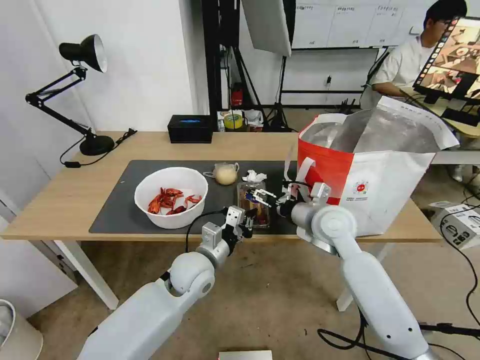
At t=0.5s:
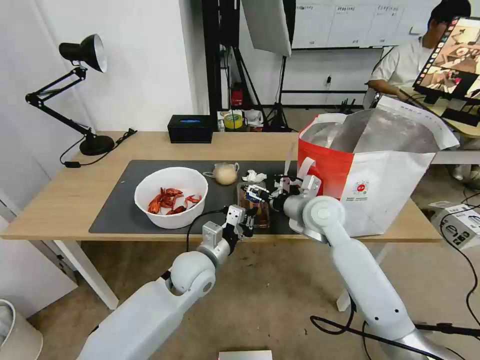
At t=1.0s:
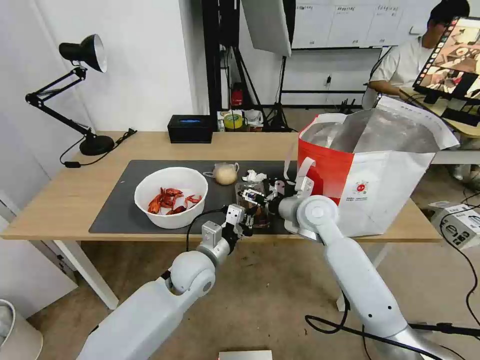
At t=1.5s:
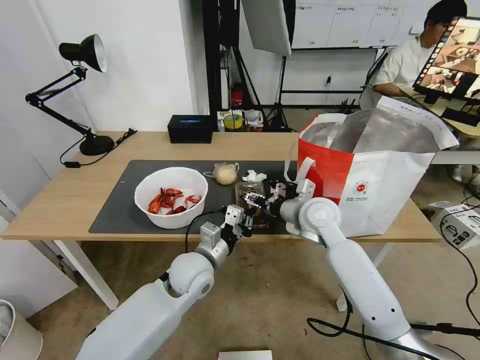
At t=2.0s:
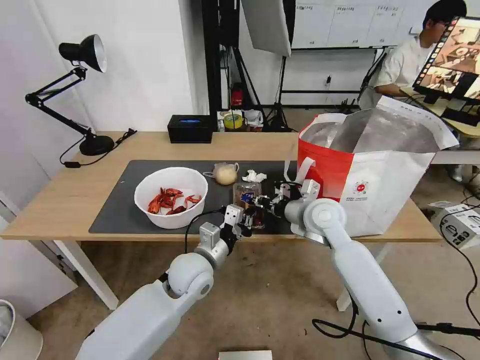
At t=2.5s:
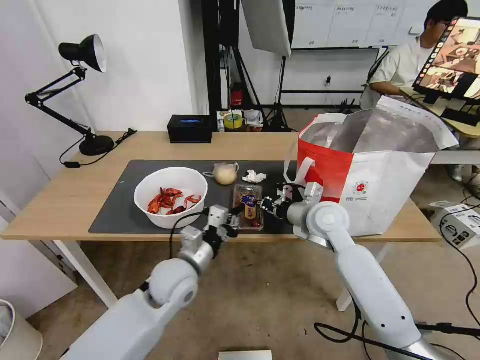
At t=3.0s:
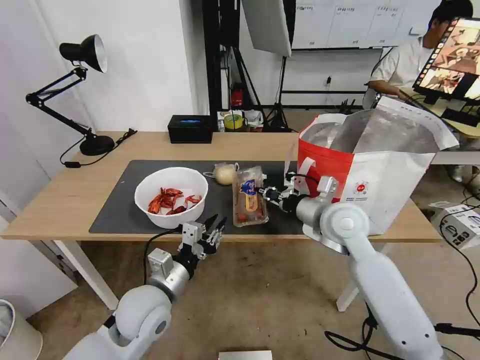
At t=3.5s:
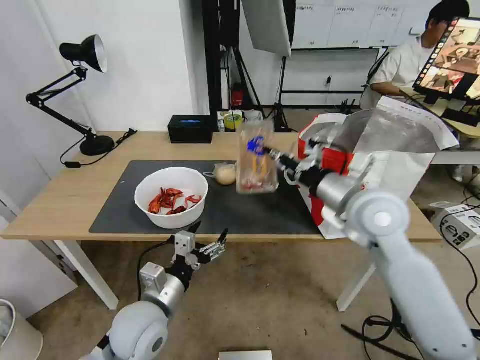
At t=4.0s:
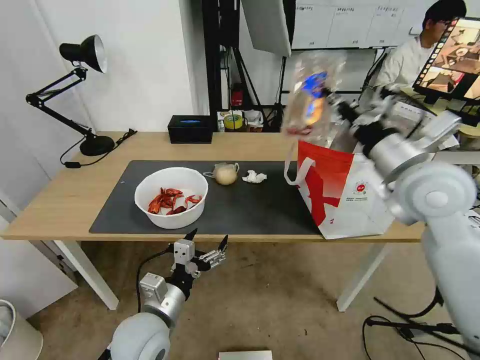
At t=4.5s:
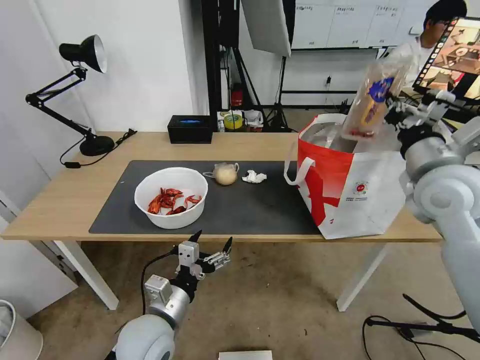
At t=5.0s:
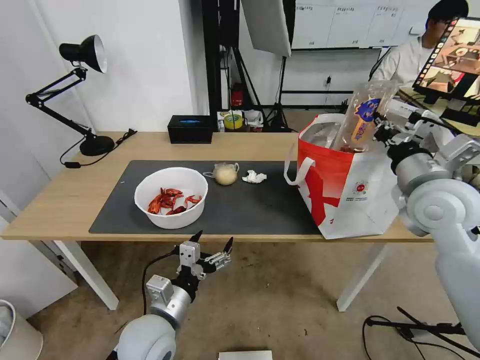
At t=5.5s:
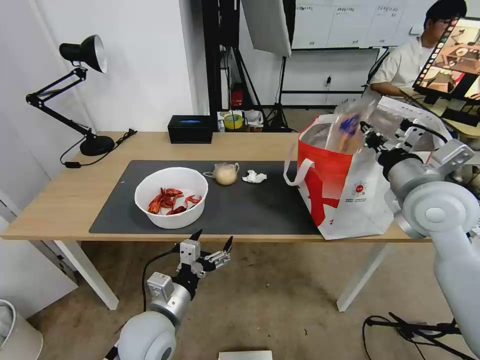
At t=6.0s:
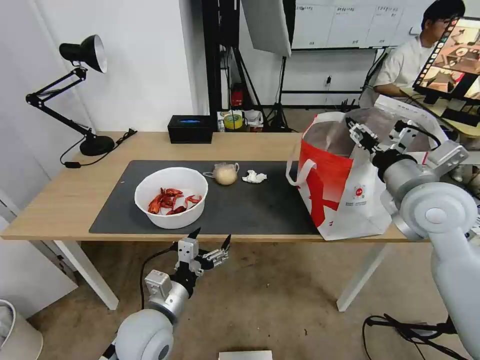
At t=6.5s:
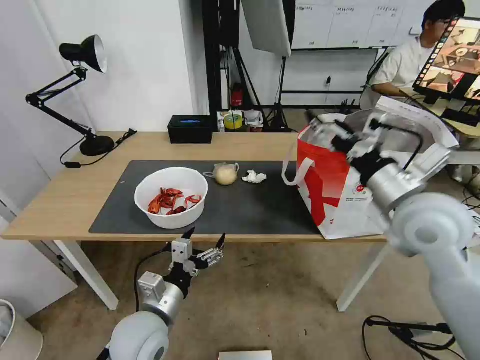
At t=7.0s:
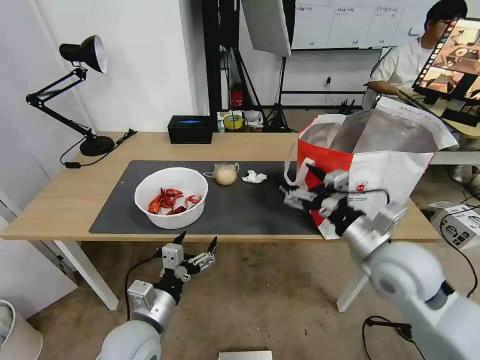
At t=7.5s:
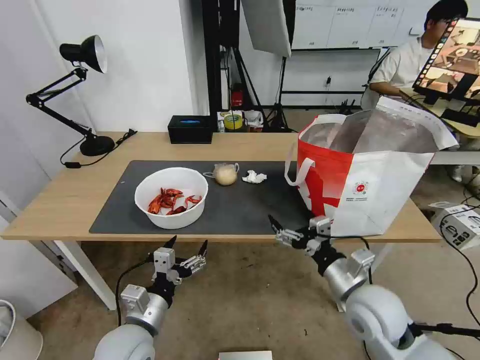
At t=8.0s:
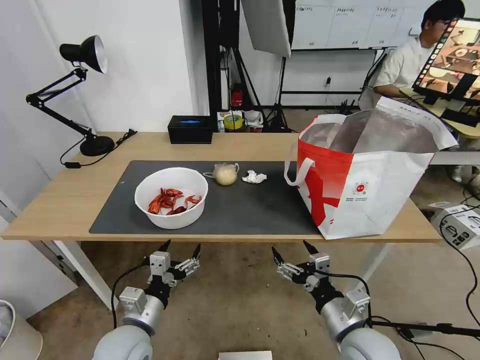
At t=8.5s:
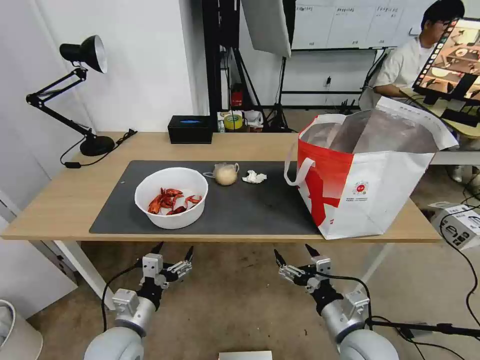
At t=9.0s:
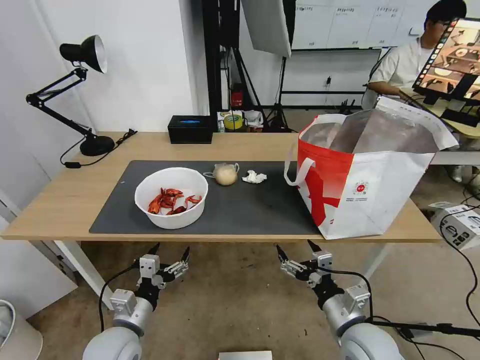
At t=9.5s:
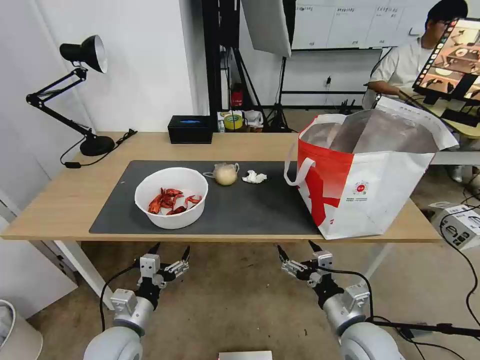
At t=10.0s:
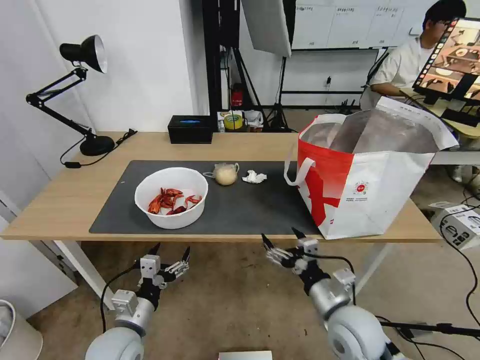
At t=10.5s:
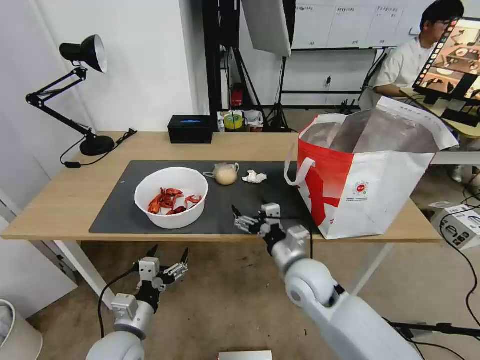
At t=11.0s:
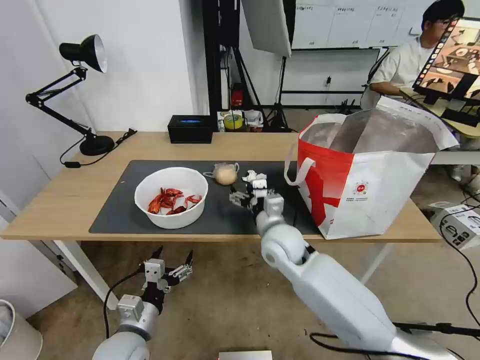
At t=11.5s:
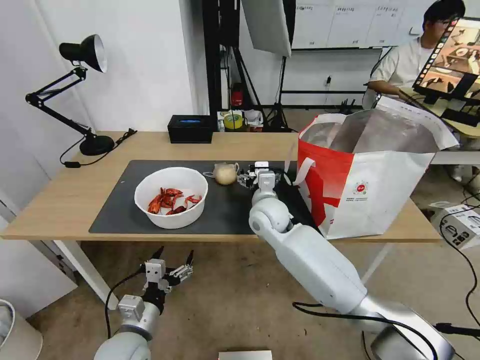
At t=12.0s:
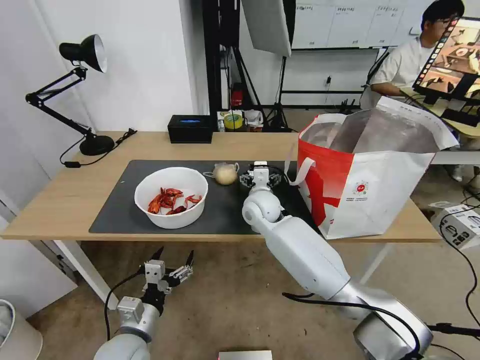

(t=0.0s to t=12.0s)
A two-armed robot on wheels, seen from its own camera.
Task of the whole recording: Pick up the trash from the table and place it into the takeout bag.
t=0.0s - t=2.0s: The right gripper closes its fingers.
t=2.0s - t=4.0s: The right gripper shifts some 20 cm upward, to the right and backward, while the left gripper moves backward and to the left, roughly 15 cm, and opens its fingers.
t=4.0s - t=6.0s: The right gripper shifts by approximately 5 cm, and opens its fingers.
t=6.0s - t=8.0s: The right gripper is displaced downward and backward by some 30 cm. The left gripper changes place by roughly 5 cm.
t=8.0s - t=10.0s: The grippers move only a little.
t=10.0s - t=12.0s: The right gripper moves forward and to the left, some 30 cm.

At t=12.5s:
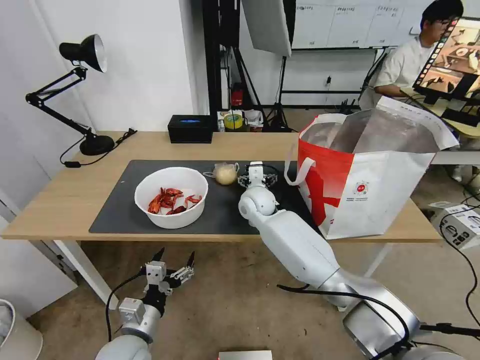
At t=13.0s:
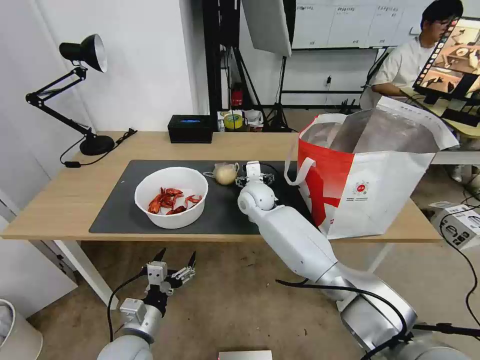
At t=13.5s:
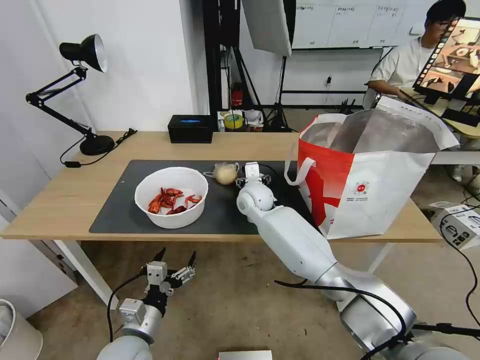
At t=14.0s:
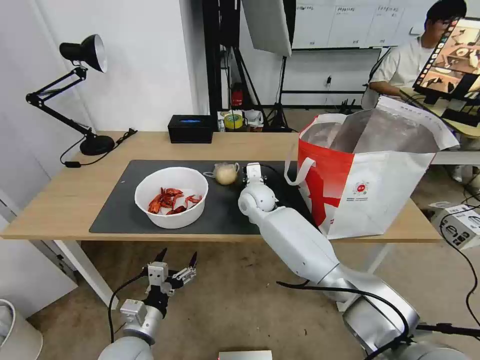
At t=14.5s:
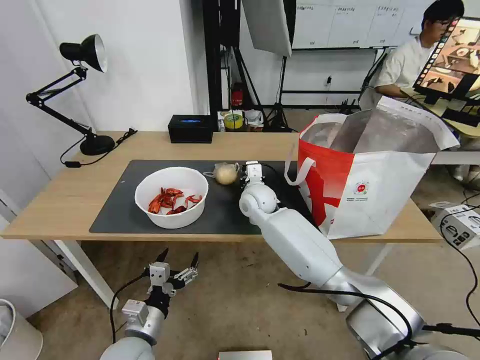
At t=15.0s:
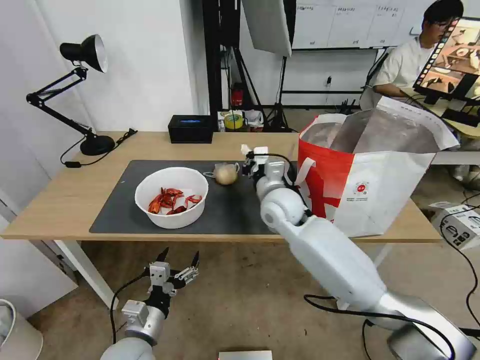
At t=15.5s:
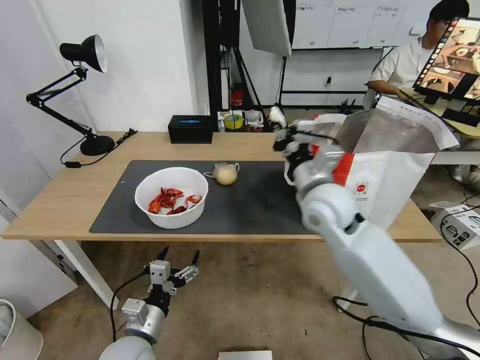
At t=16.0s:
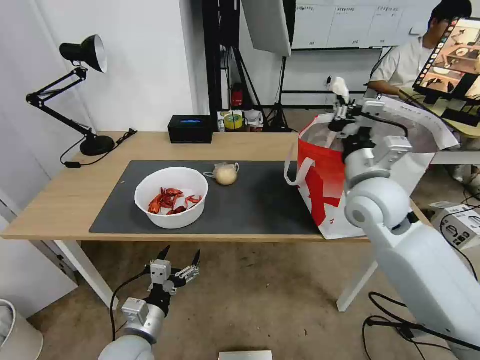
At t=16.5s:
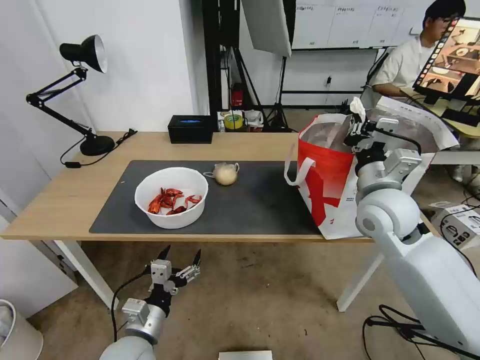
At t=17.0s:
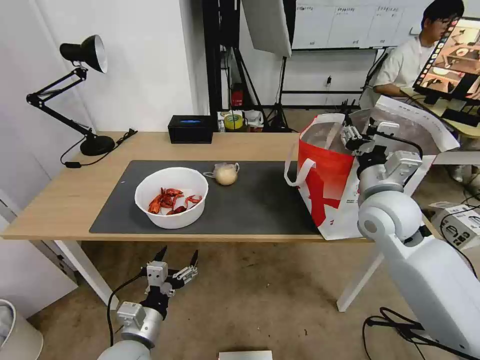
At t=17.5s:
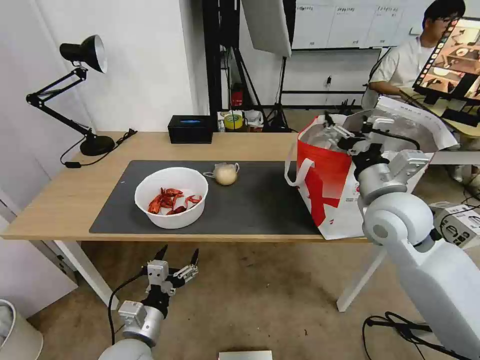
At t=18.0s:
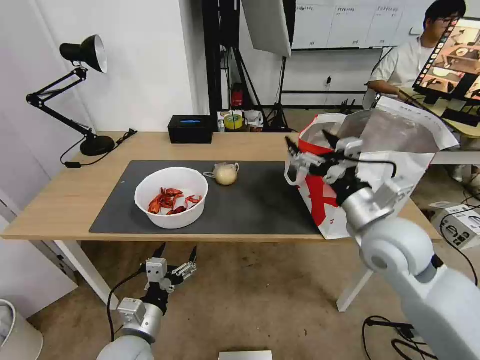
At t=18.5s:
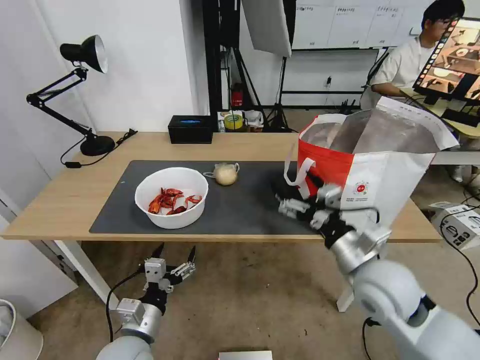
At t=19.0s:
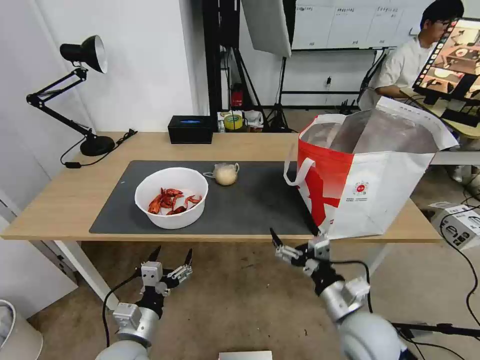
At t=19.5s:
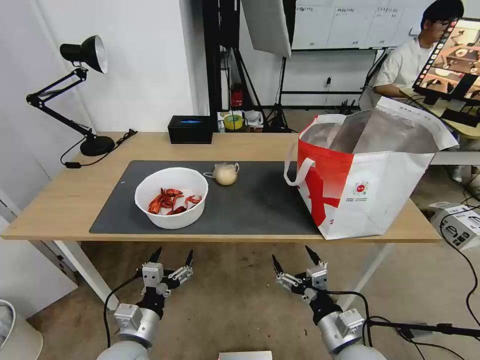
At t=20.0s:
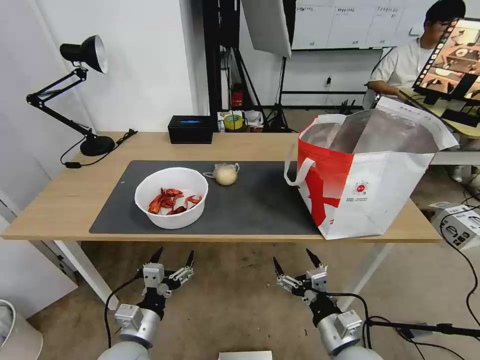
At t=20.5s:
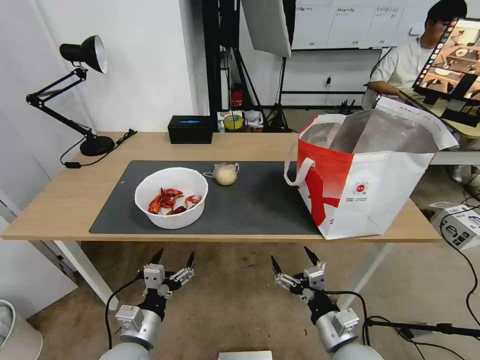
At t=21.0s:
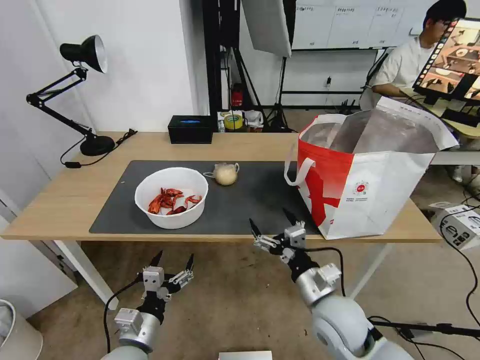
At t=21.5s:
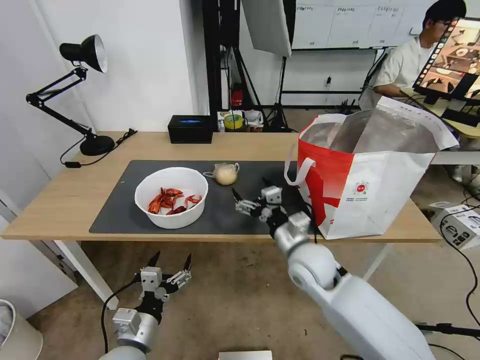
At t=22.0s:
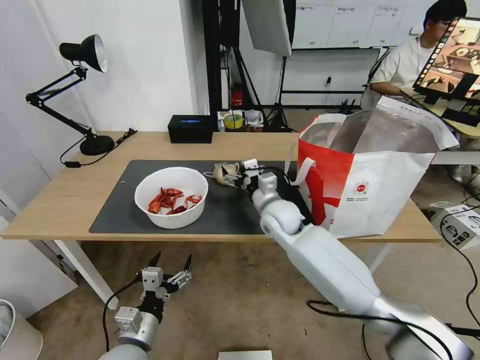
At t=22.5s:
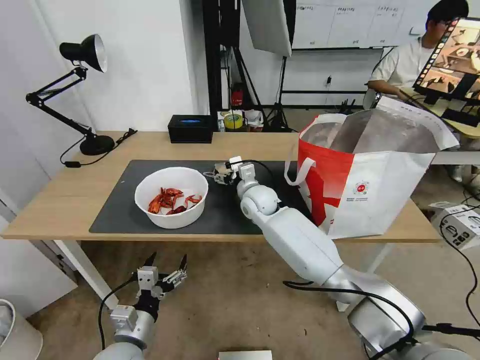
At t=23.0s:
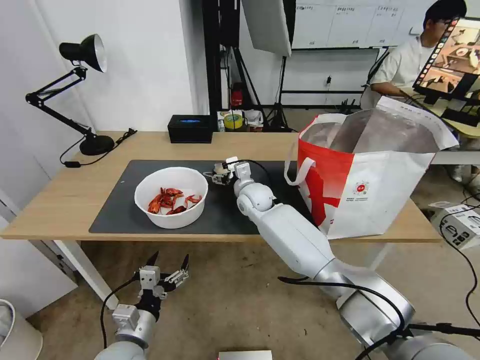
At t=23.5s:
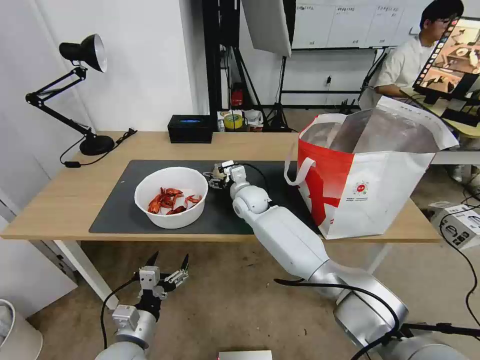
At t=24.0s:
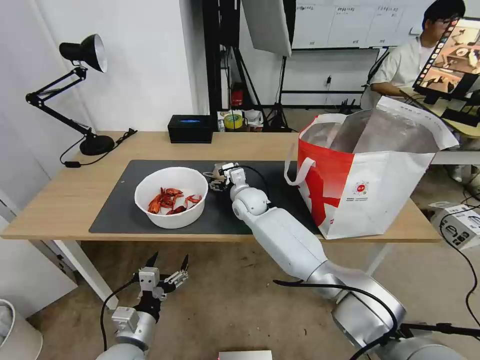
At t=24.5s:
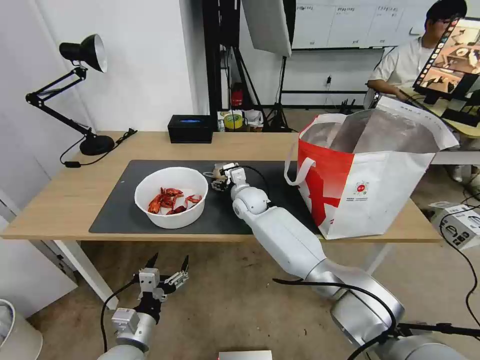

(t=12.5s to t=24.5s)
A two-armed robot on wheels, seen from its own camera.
Task of the whole recording: Pick up the trash from the table and place it into the takeout bag.
t=12.5s - t=14.5s: The right gripper closes.
t=14.5s - t=16.5s: The right gripper shifts about 30 cm to the right, backward and upward.
t=16.5s - t=18.5s: The right gripper travels backward and downward by approximately 15 cm, and opens.
t=18.5s - t=20.5s: The right gripper shifts about 15 cm downward and backward.
t=20.5s - t=22.5s: The right gripper heads forward and to the left, covering some 40 cm.
t=22.5s - t=24.5s: The grippers stay close to where they were, moving slightly.

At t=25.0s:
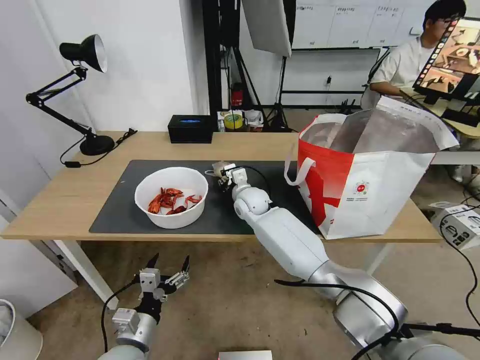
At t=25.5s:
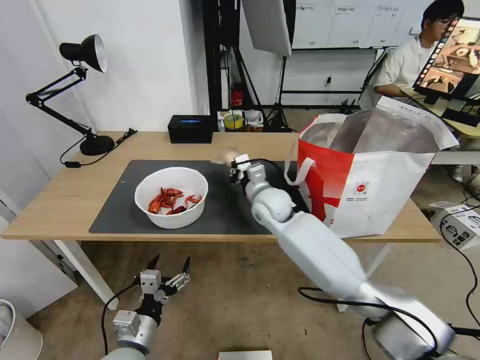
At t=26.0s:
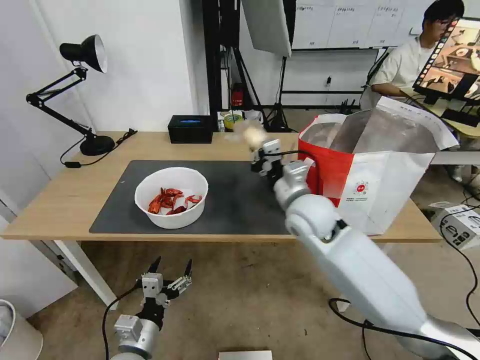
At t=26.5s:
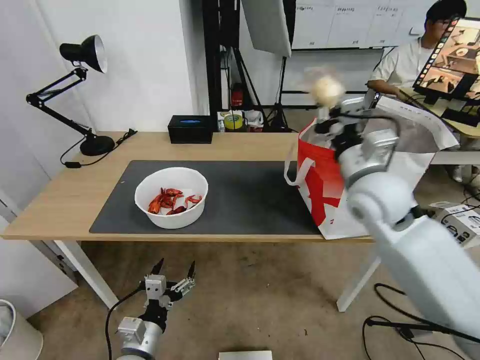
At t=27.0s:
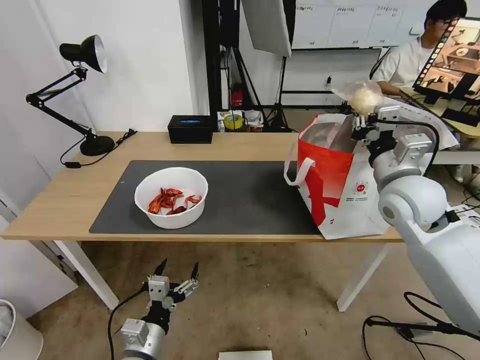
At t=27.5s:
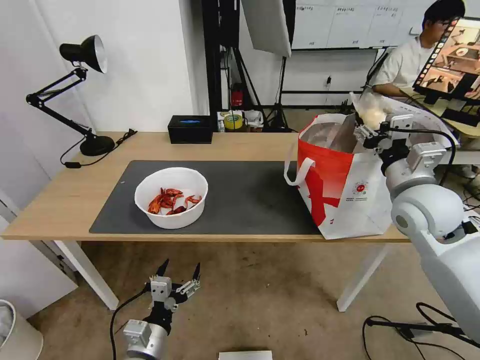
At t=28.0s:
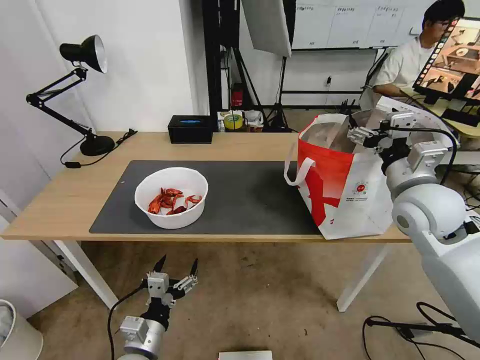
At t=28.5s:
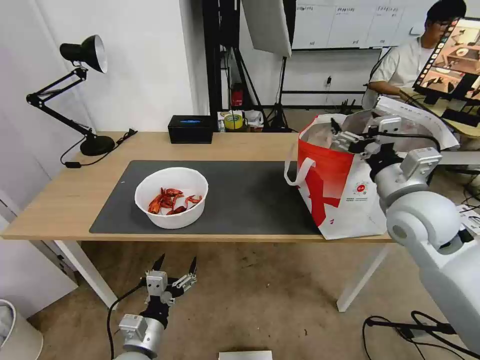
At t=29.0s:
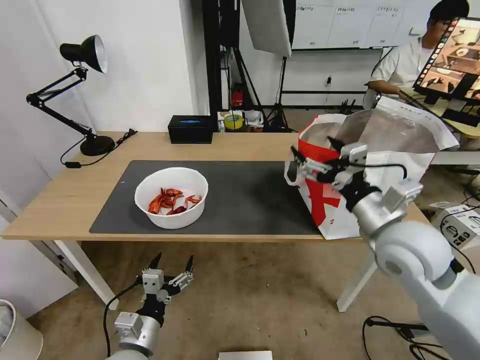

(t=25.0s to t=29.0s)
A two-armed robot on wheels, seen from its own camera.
Task of the whole recording: Pick up the trash from the table and place it into the takeout bag.
t=25.0s - t=27.0s: The right gripper heads to the right, upward and backward, covering approximately 35 cm.
t=27.0s - t=29.0s: The right gripper heads backward, covering about 10 cm, and opens up.
